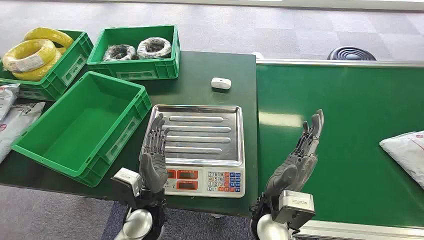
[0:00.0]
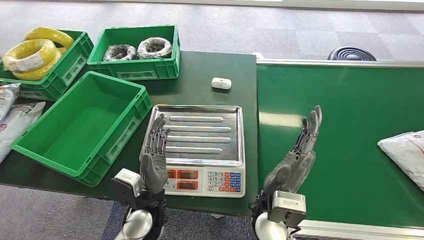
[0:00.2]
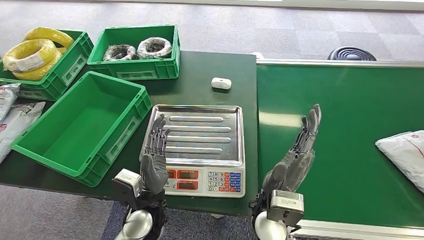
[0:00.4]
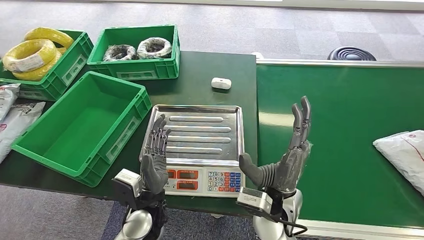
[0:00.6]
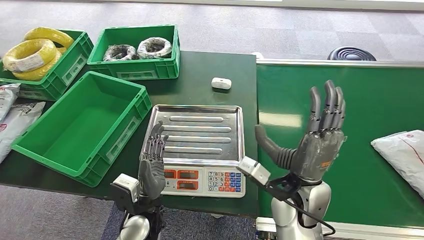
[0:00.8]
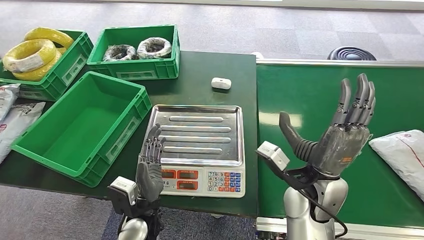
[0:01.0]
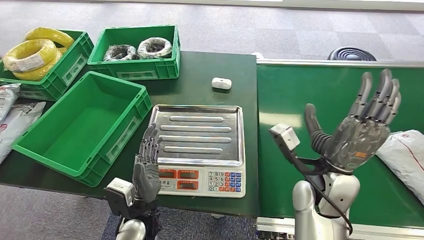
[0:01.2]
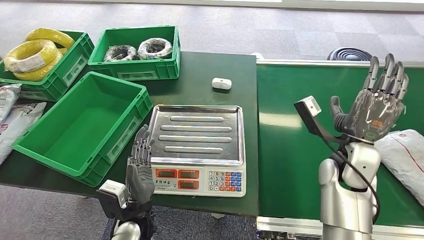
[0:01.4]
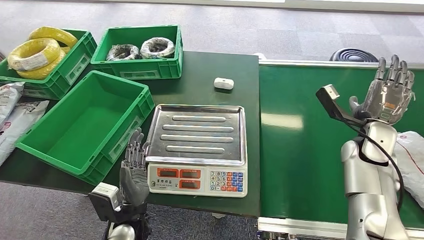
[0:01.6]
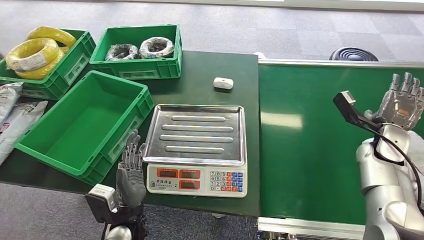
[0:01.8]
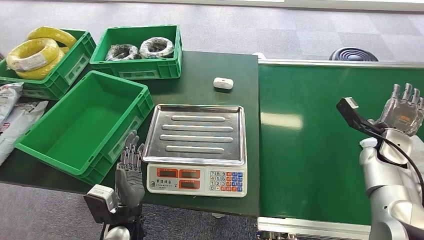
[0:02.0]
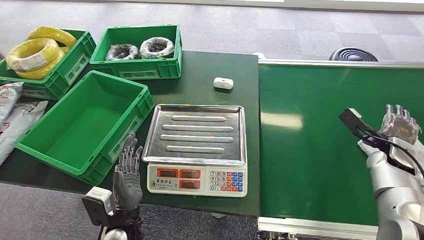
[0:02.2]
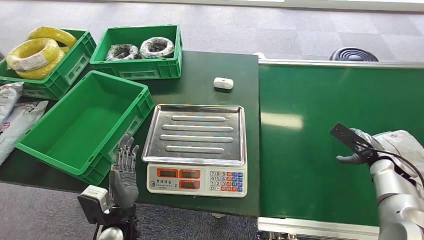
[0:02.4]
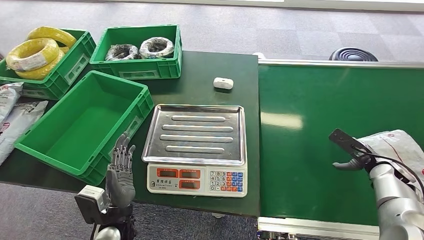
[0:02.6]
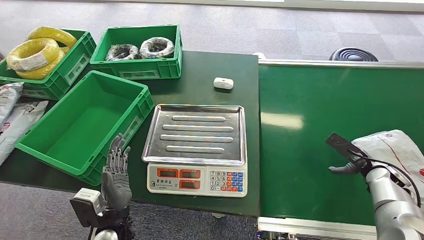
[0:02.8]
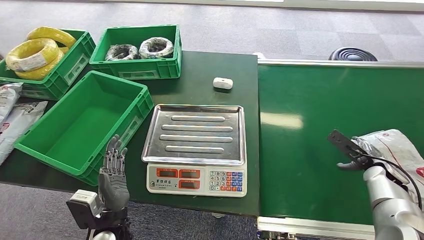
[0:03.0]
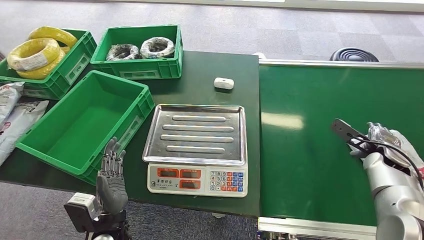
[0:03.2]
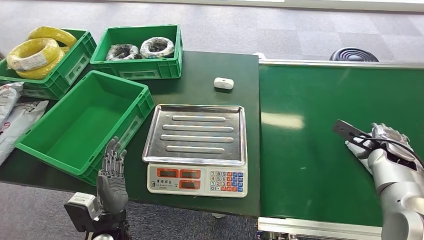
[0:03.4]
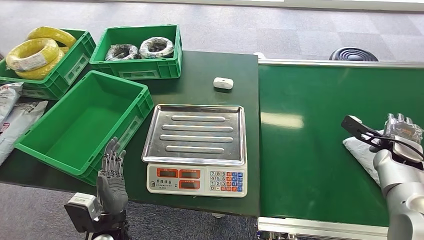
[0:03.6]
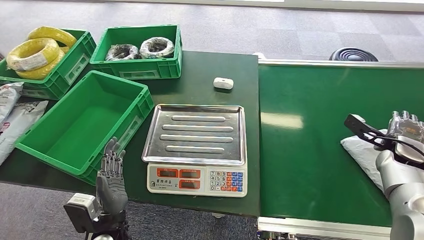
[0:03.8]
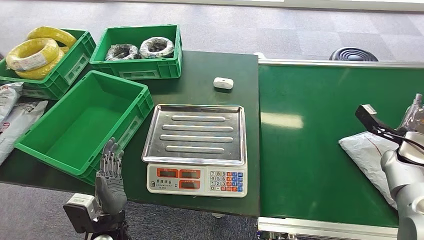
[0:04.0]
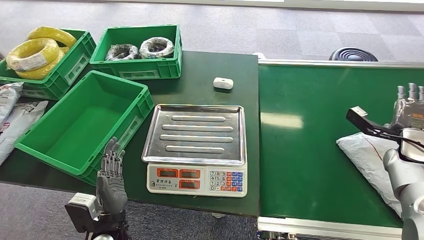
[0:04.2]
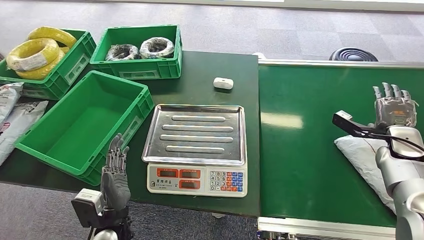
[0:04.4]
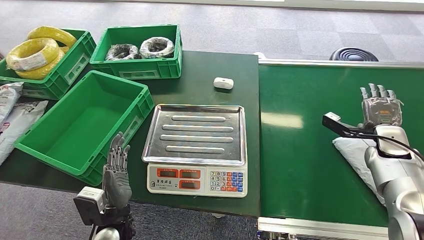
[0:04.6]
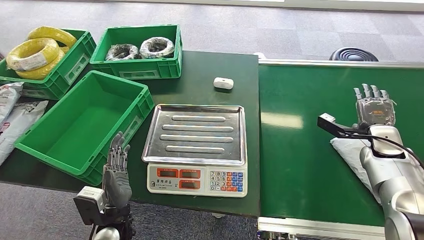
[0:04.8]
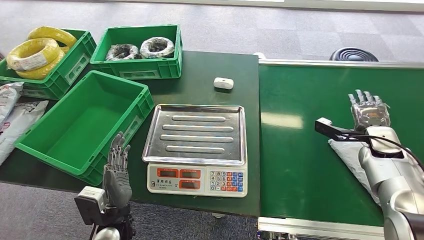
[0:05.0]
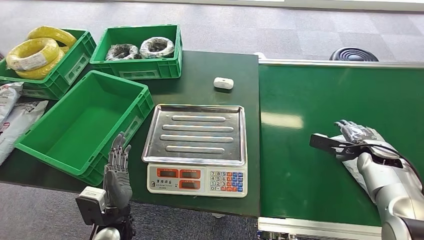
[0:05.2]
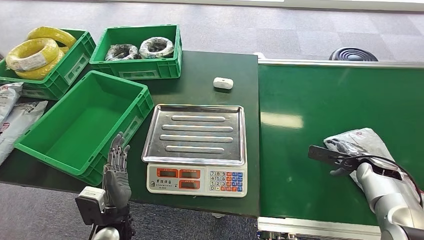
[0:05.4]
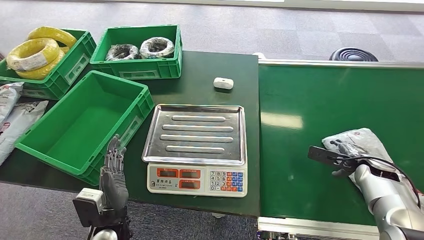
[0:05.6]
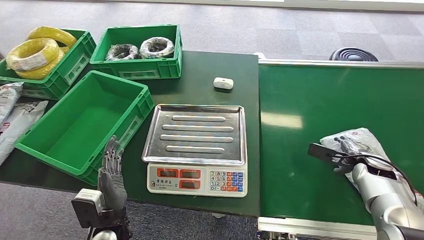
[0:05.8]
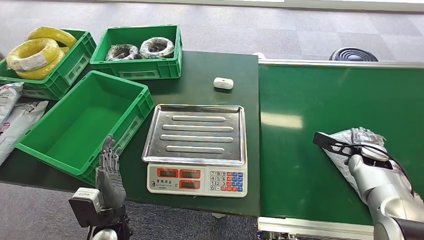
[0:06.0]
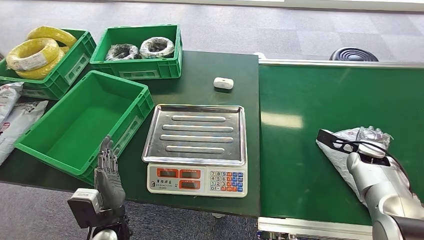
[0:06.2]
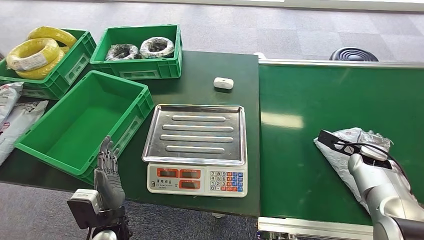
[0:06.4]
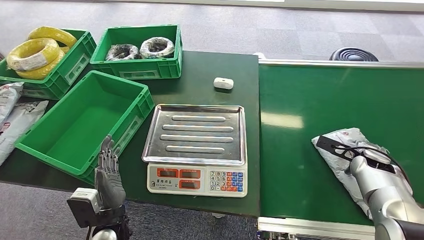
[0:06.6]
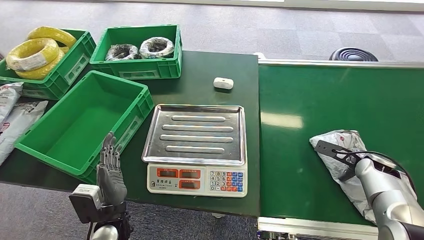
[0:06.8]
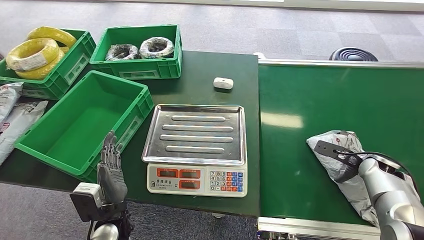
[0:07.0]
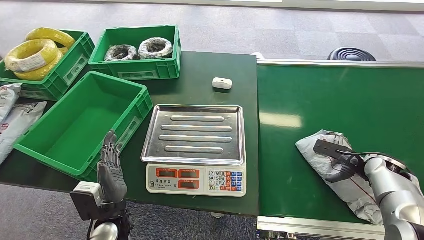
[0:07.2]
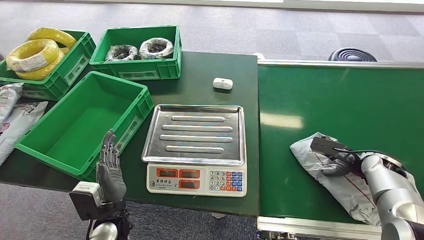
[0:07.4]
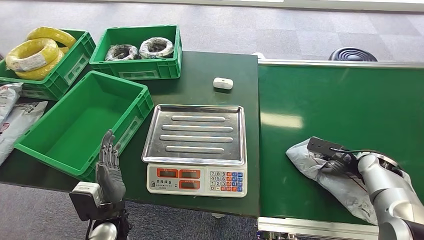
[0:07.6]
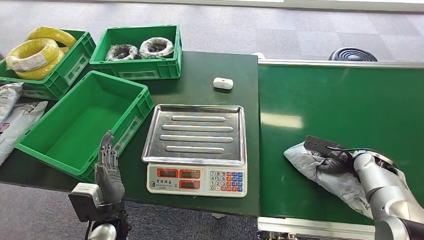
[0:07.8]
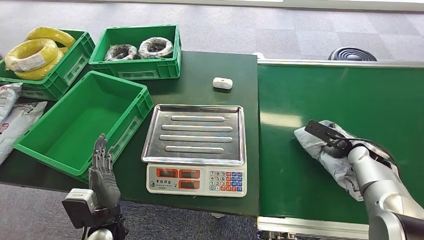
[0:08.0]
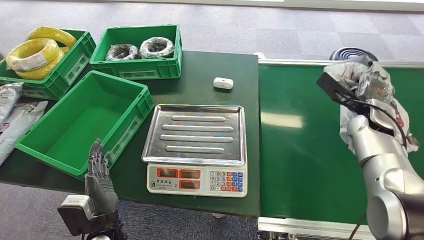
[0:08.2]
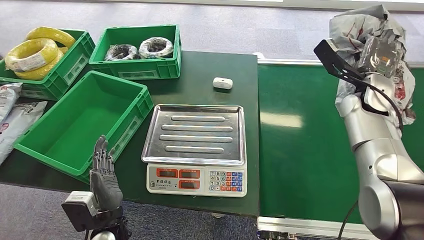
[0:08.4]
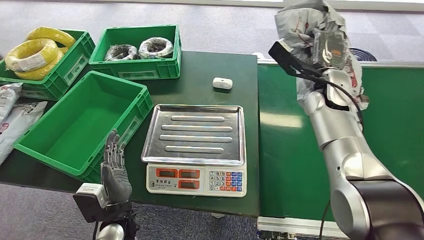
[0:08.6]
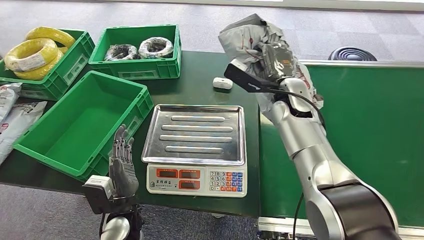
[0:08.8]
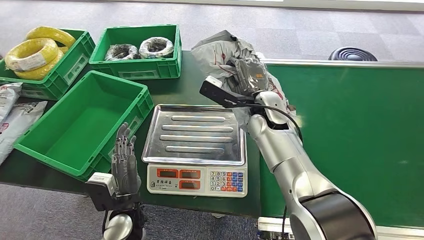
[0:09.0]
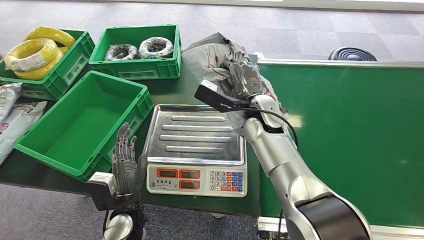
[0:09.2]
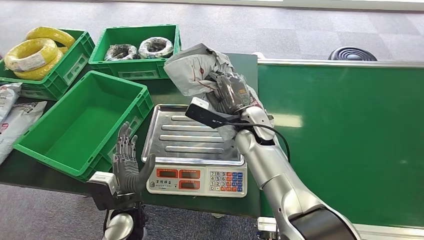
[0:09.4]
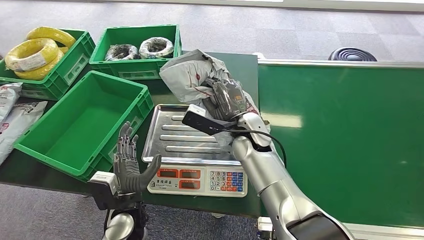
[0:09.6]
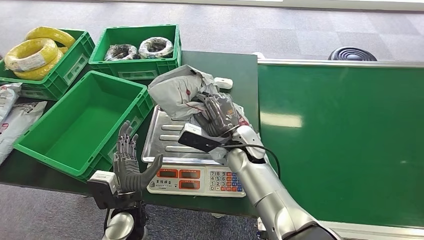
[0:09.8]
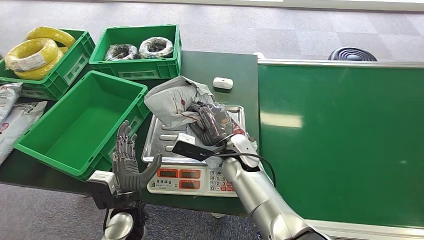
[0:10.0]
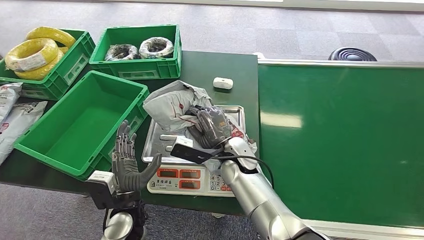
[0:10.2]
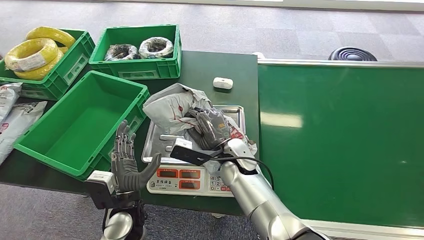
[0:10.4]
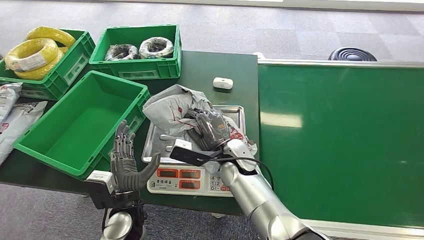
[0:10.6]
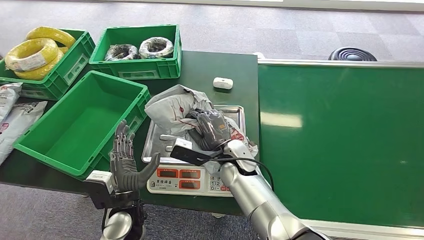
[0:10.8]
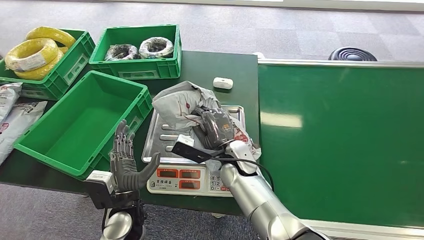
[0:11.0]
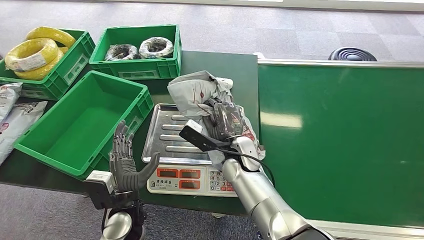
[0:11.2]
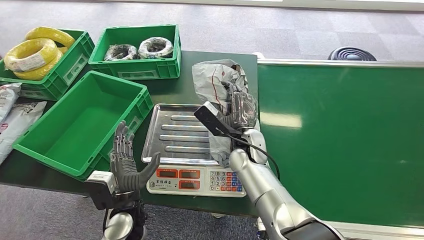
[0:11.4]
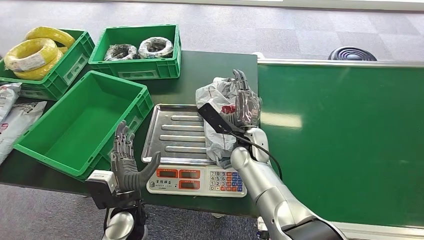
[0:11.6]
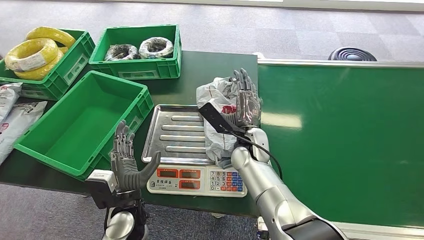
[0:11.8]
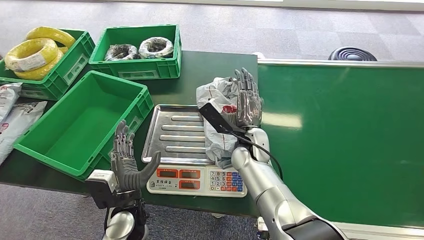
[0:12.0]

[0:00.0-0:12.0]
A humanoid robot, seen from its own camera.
Step, 0:00.0 to 0:08.2: Pick up the package from the conveyor belt.
0:01.6 to 0:03.0: The right hand is displaced downward and to the right by approximately 15 cm. Meanwhile the left hand changes place by roughly 5 cm.
0:03.0 to 0:04.4: The right hand shifts about 10 cm upward.
0:04.4 to 0:06.0: The right hand goes approximately 5 cm downward.

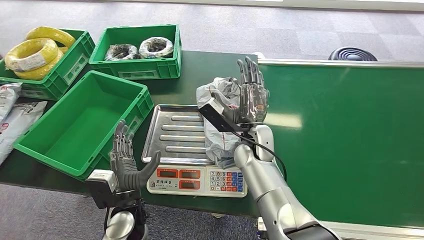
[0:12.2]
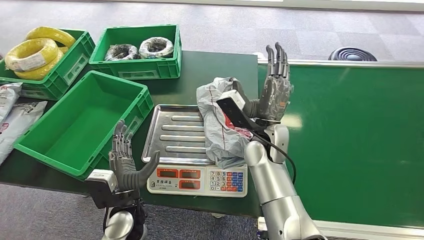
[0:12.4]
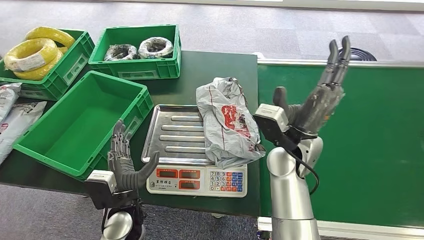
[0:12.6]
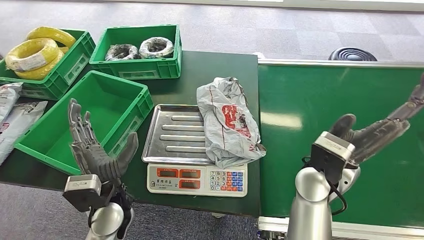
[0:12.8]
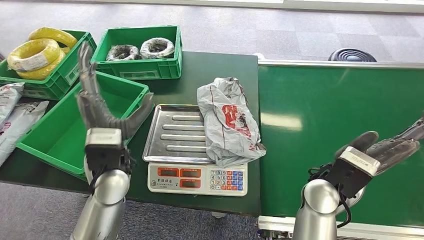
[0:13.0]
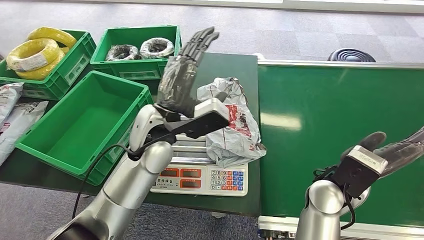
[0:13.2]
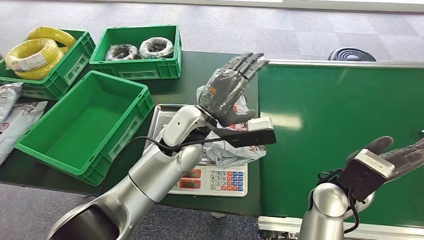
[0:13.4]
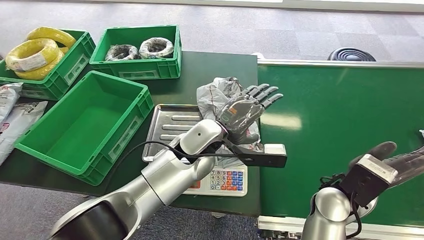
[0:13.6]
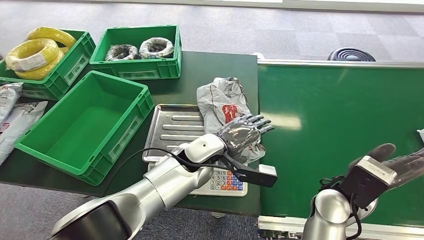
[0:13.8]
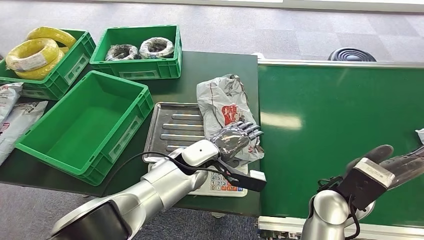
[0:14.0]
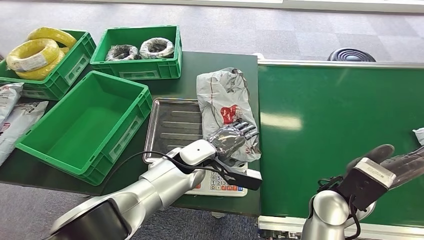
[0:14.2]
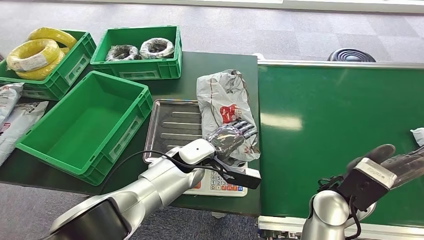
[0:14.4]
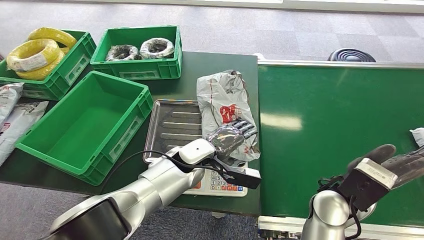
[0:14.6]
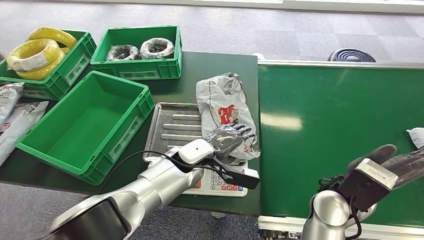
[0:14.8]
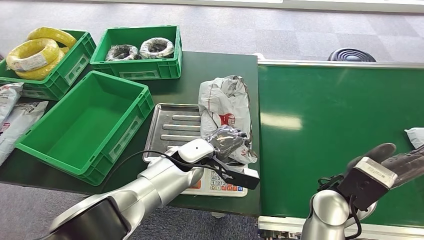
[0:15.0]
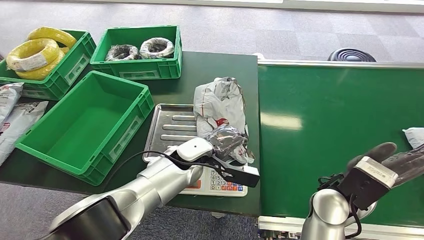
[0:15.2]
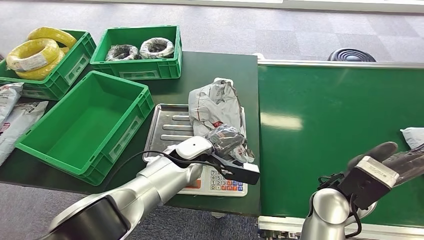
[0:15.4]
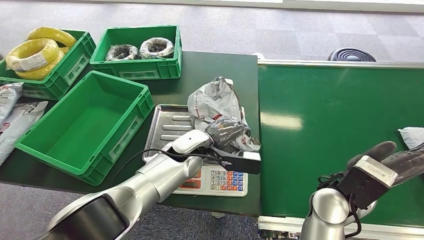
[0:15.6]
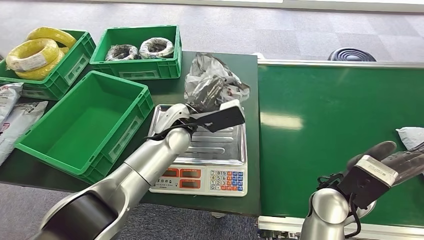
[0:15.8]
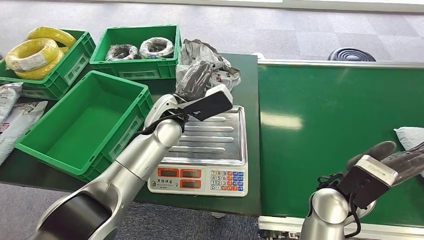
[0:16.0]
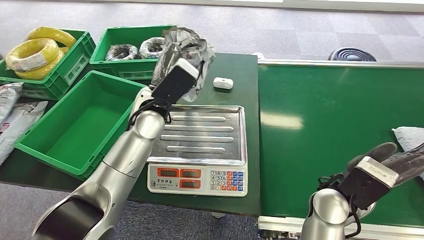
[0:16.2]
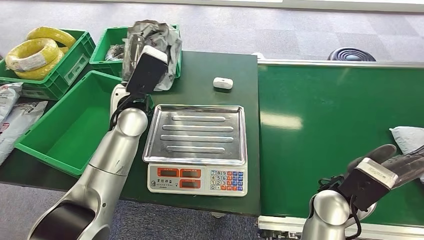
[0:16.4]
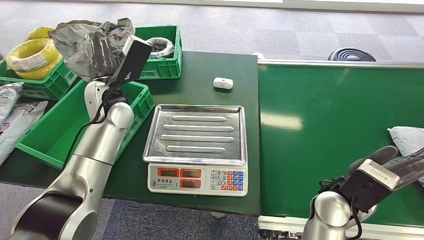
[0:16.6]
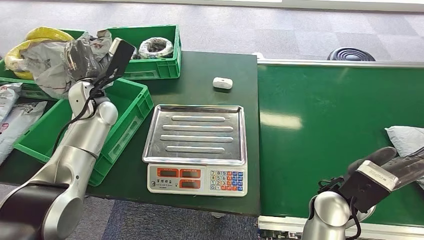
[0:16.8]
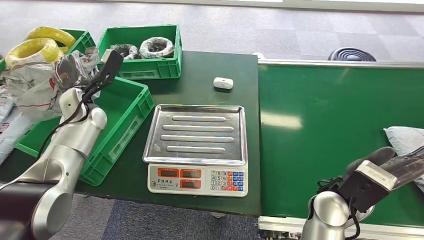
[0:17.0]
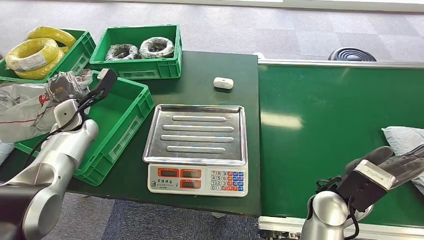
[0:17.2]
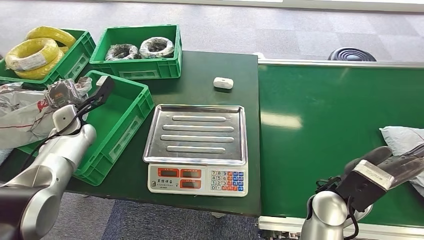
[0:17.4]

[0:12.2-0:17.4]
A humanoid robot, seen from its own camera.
Step, 0:12.8 to 0:16.2: Pick up the package from the inbound machine.
Step, 0:16.6 to 0:17.4: Place the package into the parcel locker.
0:14.0 to 0:15.6: The hands stay close to where they were, moving slightly.
